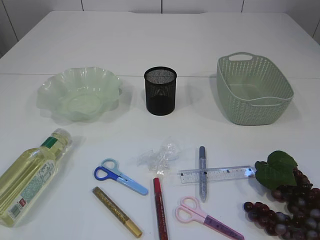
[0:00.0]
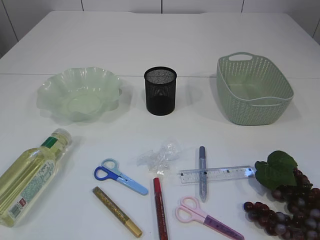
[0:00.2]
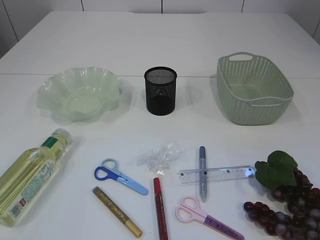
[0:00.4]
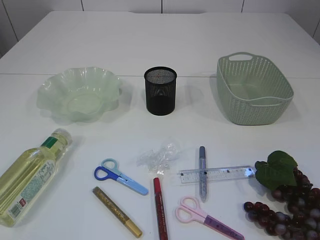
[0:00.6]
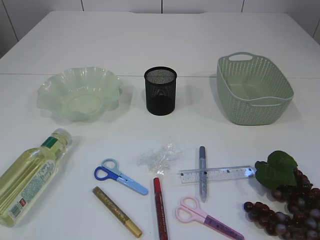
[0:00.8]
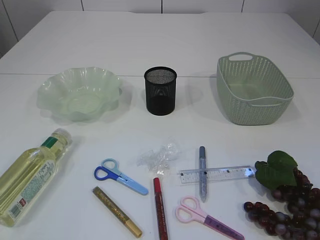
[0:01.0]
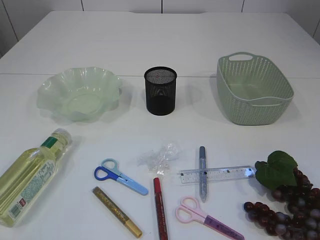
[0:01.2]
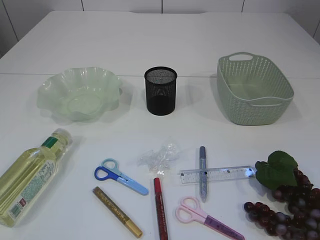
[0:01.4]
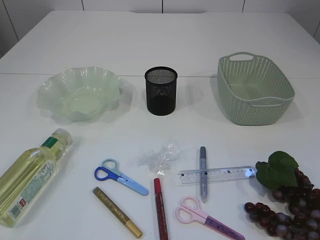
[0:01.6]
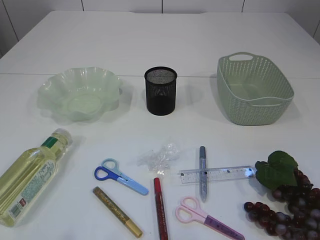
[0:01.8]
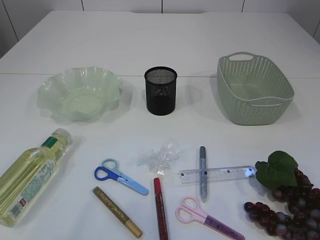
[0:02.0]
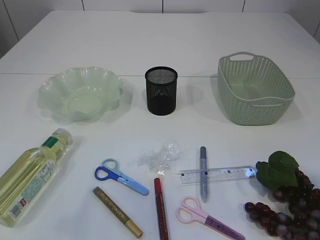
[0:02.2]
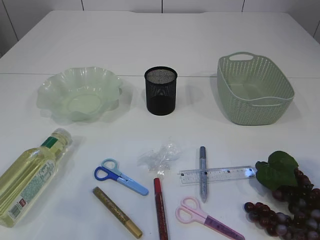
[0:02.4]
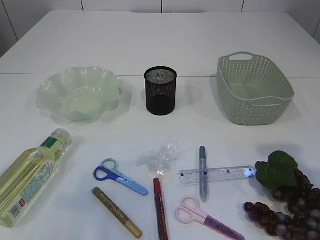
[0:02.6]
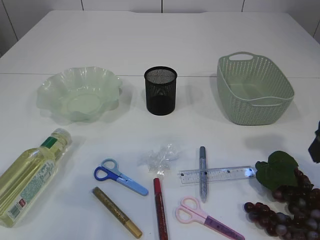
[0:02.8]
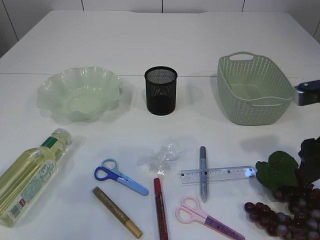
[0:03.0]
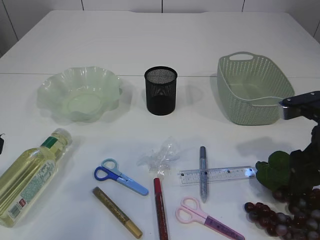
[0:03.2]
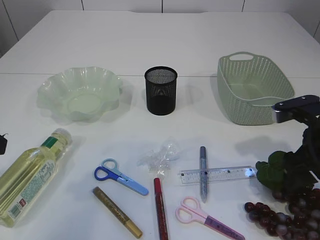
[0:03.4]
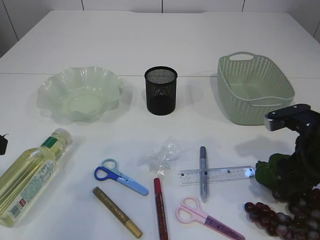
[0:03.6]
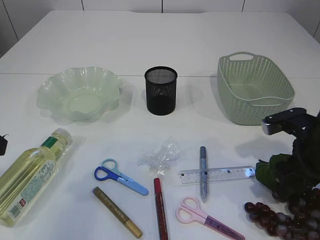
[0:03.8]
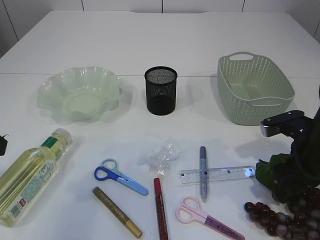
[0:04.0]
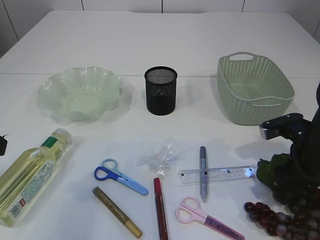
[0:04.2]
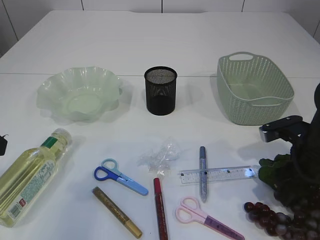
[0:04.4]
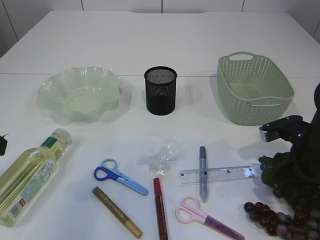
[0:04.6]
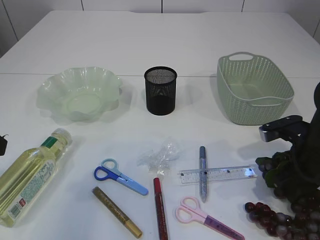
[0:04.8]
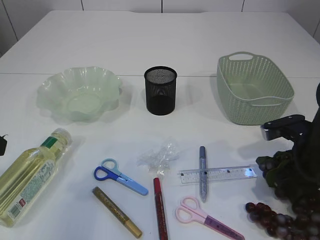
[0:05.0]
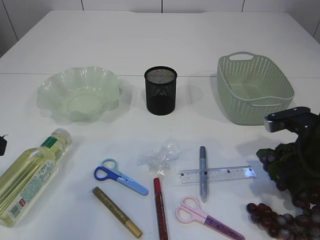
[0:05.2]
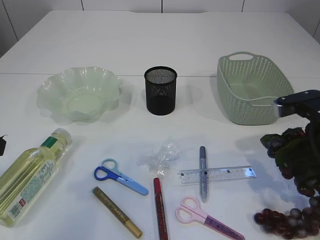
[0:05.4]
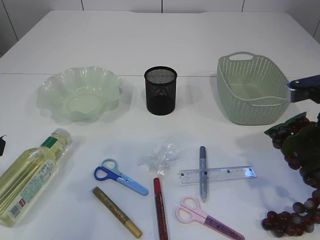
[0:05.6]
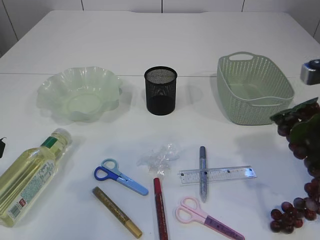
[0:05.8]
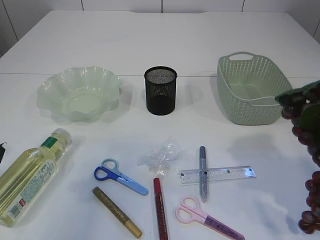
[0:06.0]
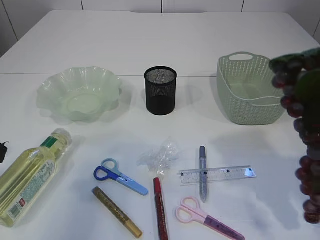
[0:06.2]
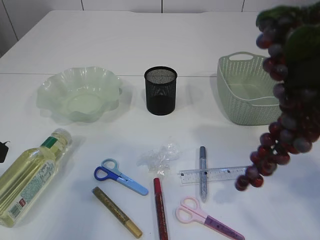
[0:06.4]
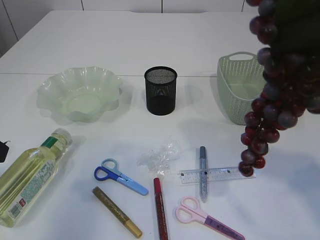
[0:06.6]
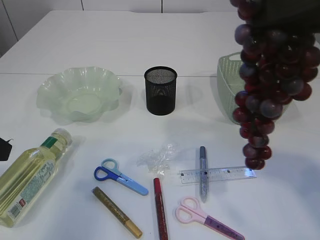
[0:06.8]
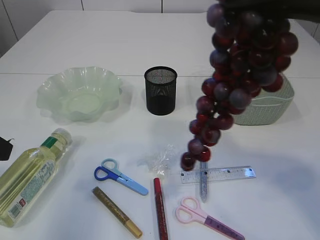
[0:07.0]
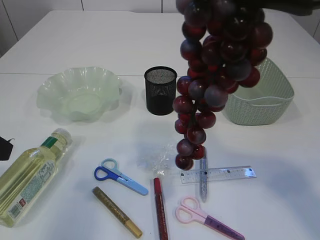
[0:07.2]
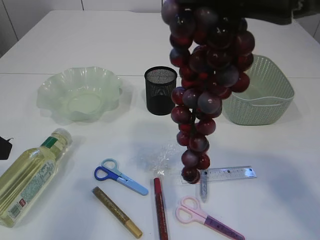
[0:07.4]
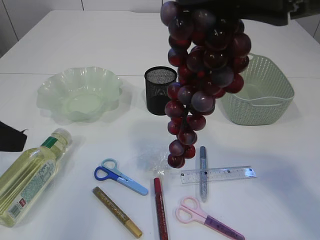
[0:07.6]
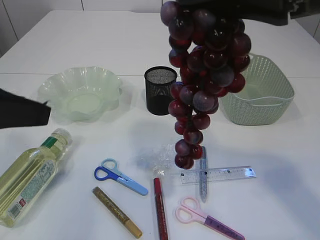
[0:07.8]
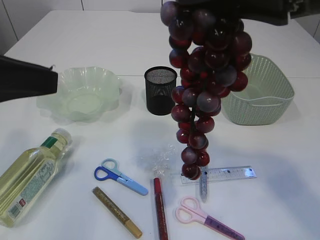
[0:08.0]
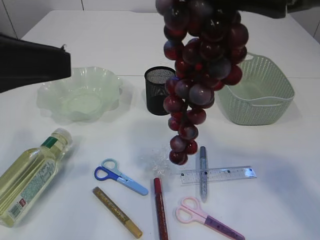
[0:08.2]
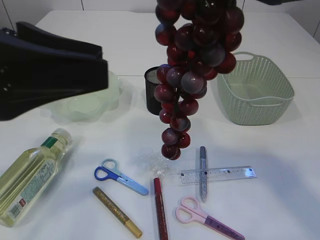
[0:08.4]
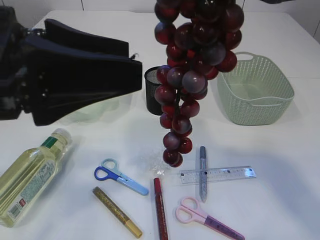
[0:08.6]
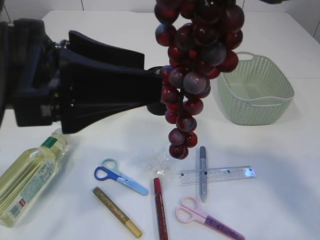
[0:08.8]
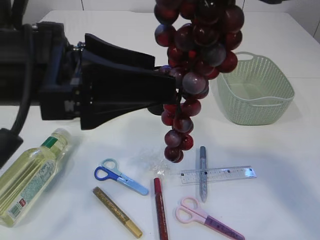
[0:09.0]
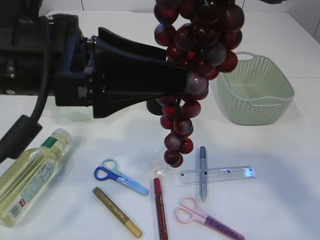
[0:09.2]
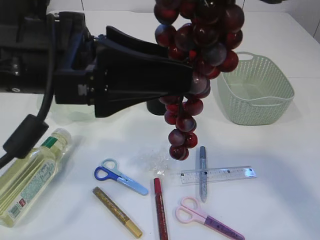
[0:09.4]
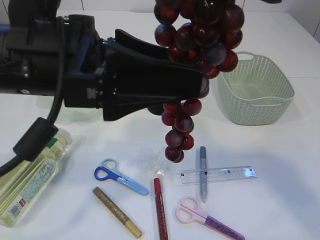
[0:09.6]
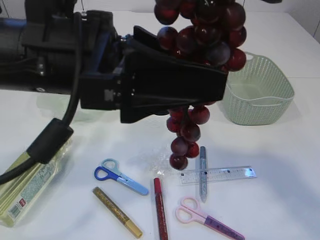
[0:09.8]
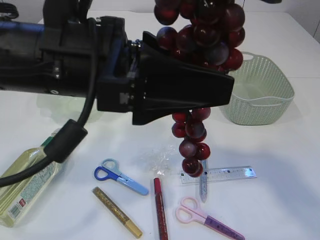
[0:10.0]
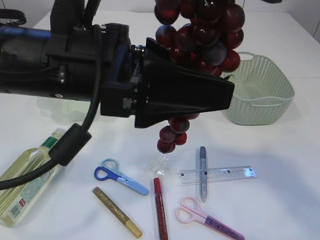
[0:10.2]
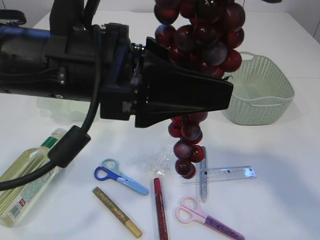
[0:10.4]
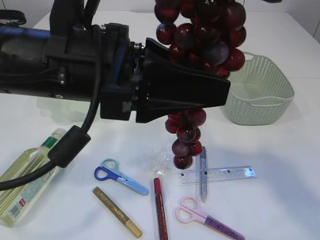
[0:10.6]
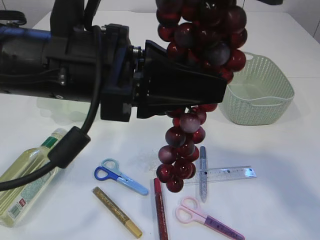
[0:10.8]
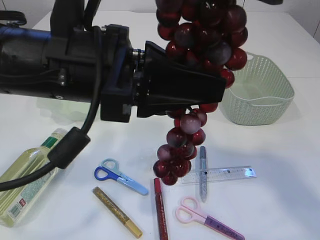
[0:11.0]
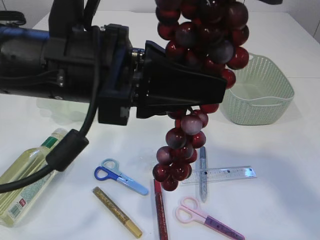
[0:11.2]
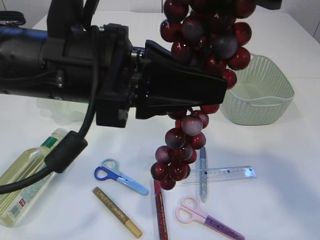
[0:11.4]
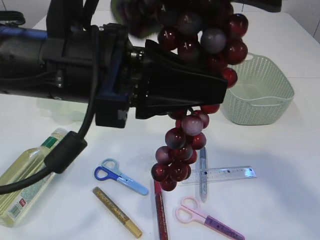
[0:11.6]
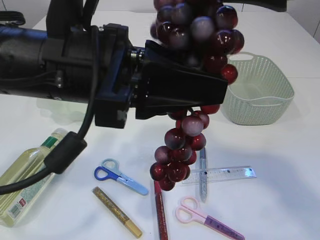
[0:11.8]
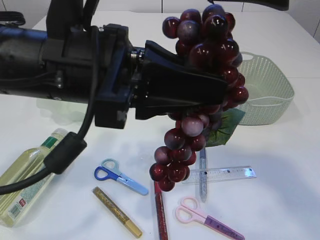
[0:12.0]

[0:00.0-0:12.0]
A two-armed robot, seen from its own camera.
Step, 0:00.0 to 0:06.2: Pick up the grapes.
0:01.6 to 0:03.0: The two grippers go approximately 20 cm forward.
0:03.0 to 0:04.4: The right gripper travels downward by some 10 cm.
0:04.4 to 0:06.0: The right gripper heads upward and backward, covering roughly 20 cm, and closes up.
0:06.0 to 0:07.6: The right gripper travels upward and to the left by about 15 cm.
0:07.6 to 0:09.0: The left gripper travels to the right by roughly 15 cm, and opens its fingers.
0:09.0 to 0:10.4: The left gripper is displaced to the right by approximately 5 cm.
0:10.4 to 0:12.0: The right gripper opens, while the left gripper closes.

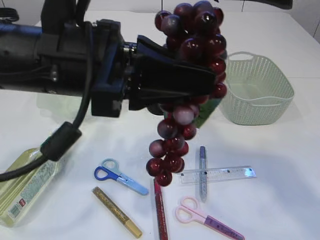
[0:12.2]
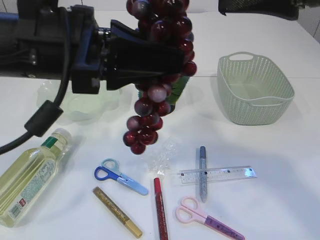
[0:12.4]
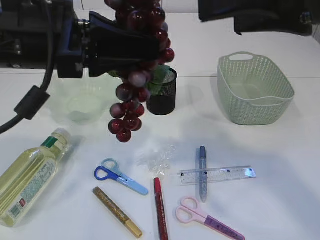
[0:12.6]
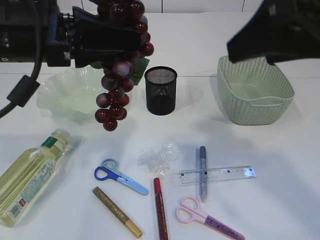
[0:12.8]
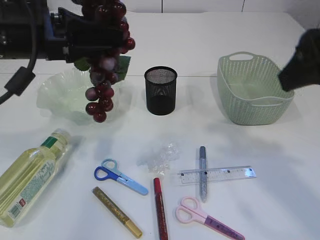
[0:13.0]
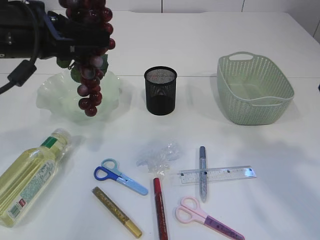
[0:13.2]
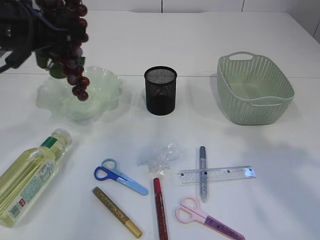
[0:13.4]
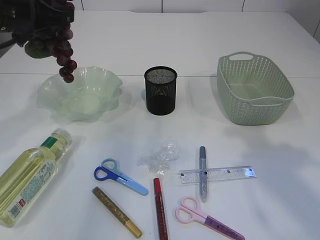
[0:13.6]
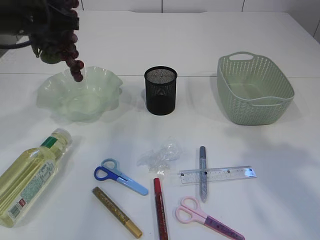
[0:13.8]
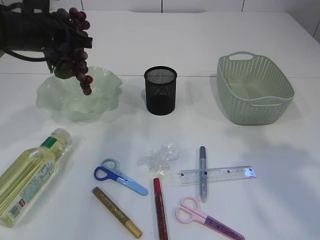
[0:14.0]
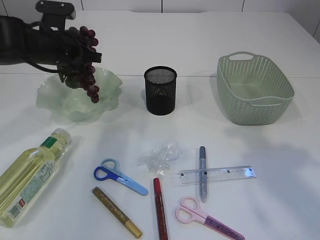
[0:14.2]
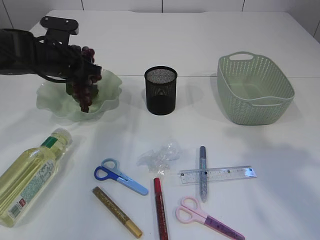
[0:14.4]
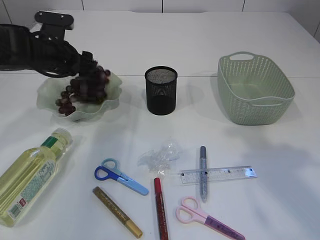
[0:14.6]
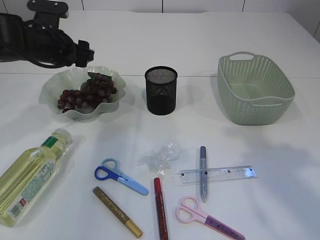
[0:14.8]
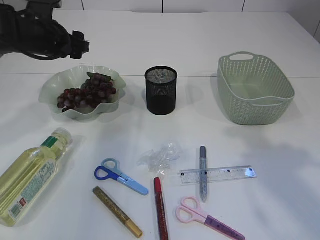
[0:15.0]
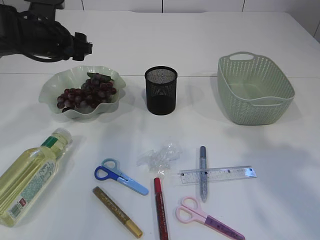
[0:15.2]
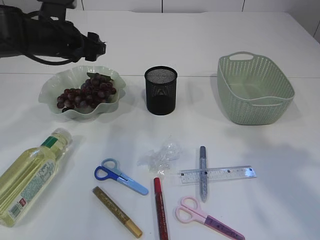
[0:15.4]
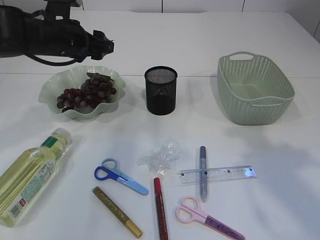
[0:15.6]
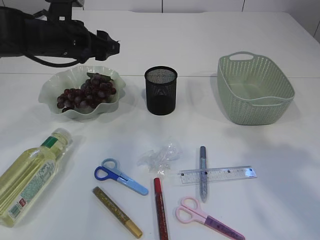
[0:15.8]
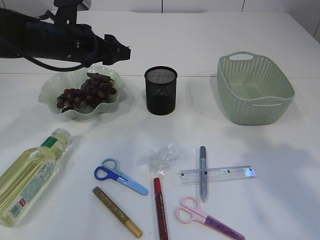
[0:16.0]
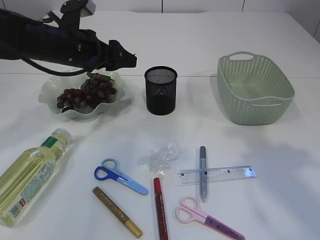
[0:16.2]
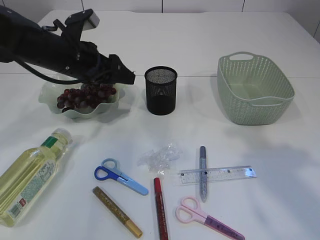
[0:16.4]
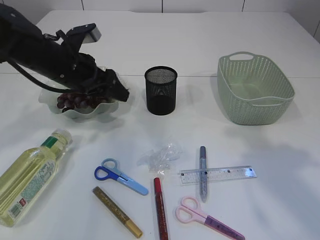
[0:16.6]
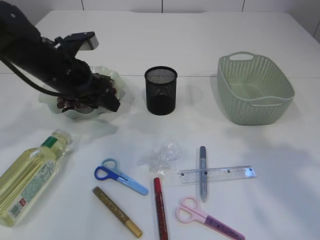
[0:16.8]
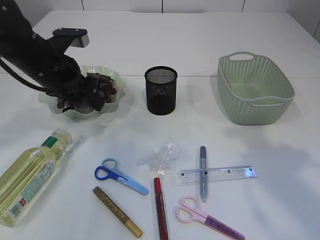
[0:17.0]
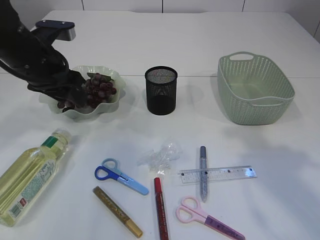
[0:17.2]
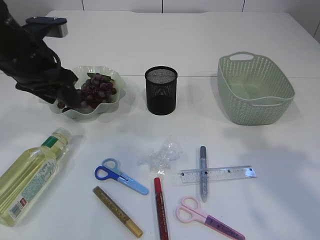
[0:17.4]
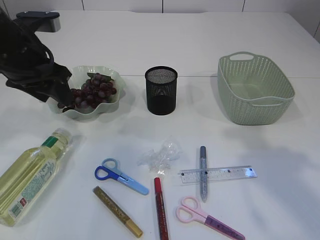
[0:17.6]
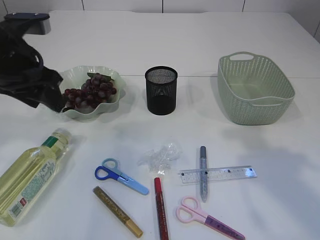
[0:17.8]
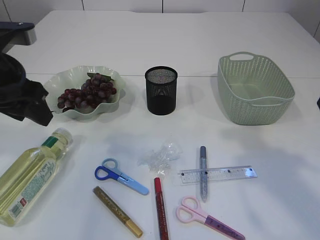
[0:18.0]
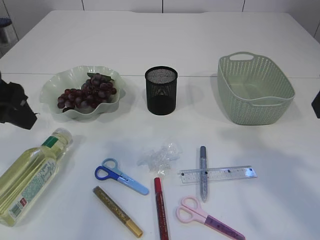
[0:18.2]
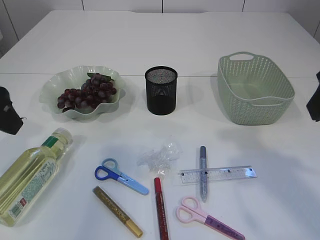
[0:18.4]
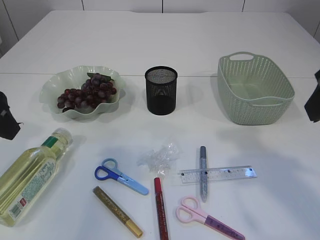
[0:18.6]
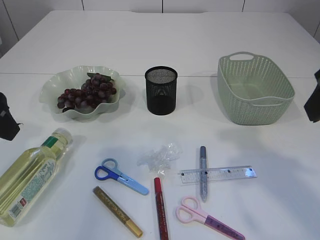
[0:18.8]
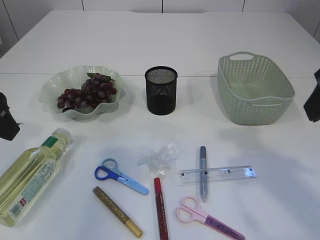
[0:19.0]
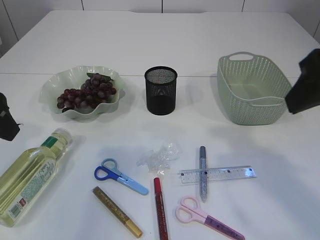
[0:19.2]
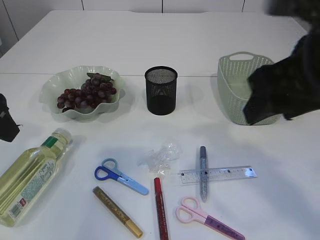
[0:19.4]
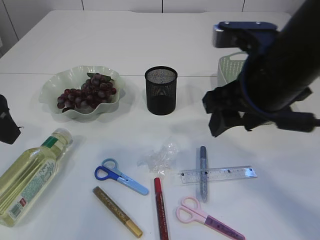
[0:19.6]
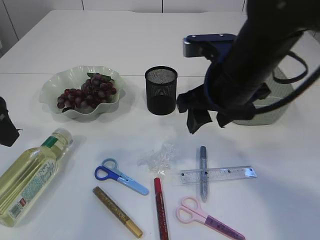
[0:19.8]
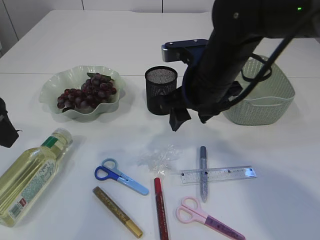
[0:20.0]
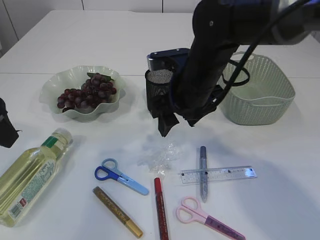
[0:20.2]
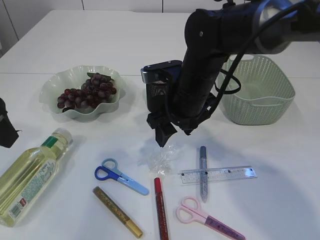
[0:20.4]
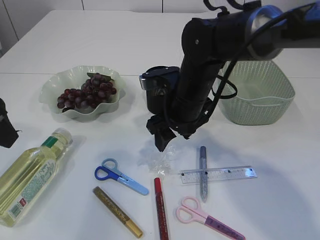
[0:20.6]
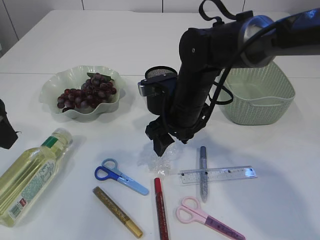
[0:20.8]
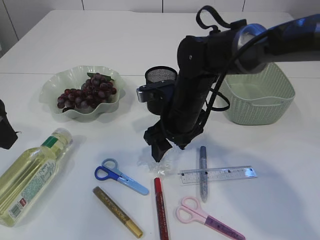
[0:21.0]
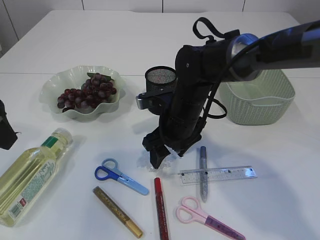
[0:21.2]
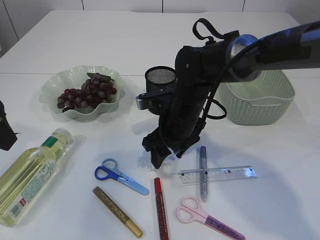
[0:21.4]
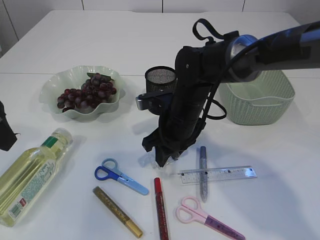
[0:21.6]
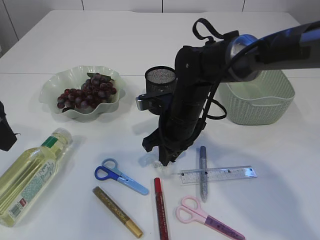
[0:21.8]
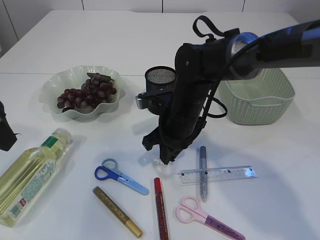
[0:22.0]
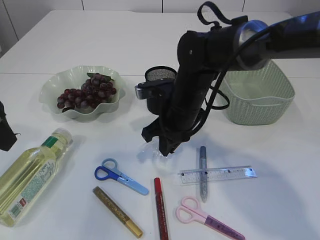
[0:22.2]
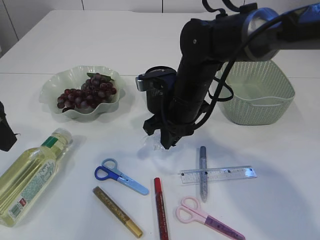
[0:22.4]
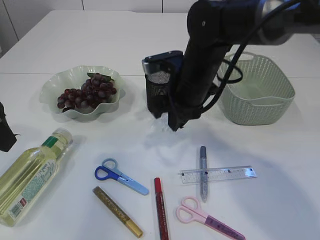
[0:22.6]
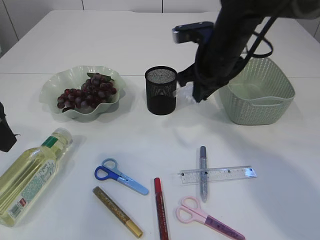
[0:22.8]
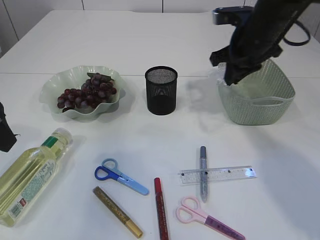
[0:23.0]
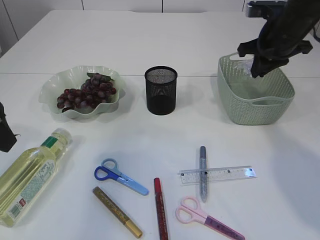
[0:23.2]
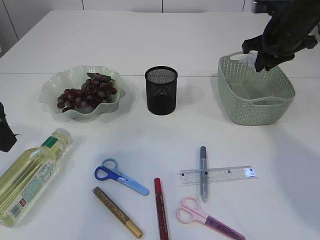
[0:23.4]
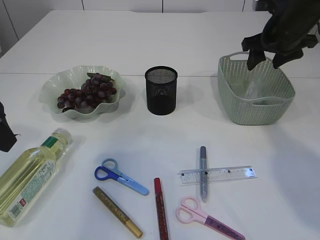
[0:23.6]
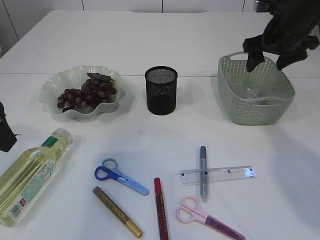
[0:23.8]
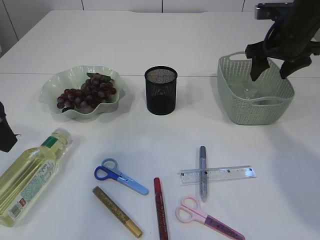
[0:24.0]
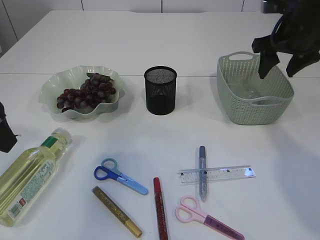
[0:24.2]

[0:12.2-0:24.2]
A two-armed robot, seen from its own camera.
Step, 0:12.8 to 0:15.2: Place the grapes in the plate.
Step, 0:15.4 to 0:22.6: Pick up the plastic.
0:12.2 to 0:13.8: The left gripper heads forward and to the left, covering about 20 cm. Meanwhile the right gripper travels to the right and downward by approximately 10 cm.
0:13.8 to 0:15.2: The left gripper travels downward and forward by about 10 cm, and opens its fingers.
0:15.2 to 0:16.6: The left gripper ends up approximately 5 cm from where it was.
0:16.6 to 0:18.2: The left gripper is displaced backward, upward and to the left by roughly 15 cm.
0:18.2 to 0:19.8: The right gripper goes about 20 cm to the left, forward and downward.
0:19.8 to 0:21.2: The right gripper heads downward, forward and to the left, covering roughly 15 cm.
0:21.2 to 0:22.6: The right gripper is displaced upward by some 5 cm, and closes up.
0:22.6 to 0:24.2: The right gripper moves to the right, roughly 20 cm, and opens.
